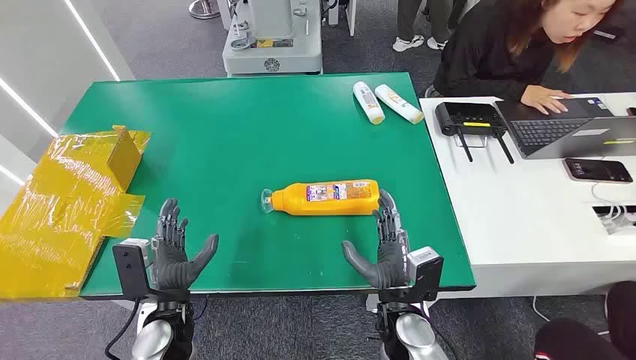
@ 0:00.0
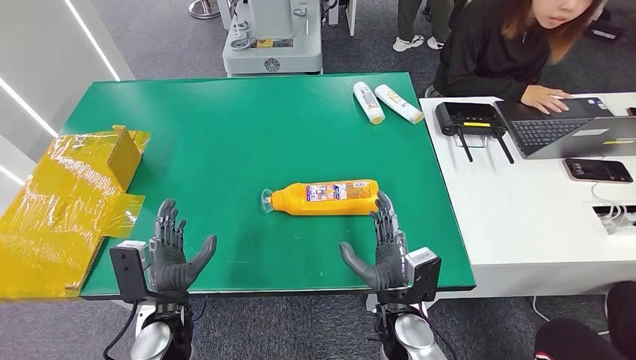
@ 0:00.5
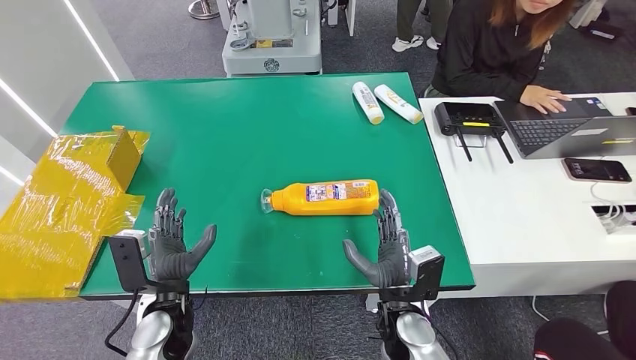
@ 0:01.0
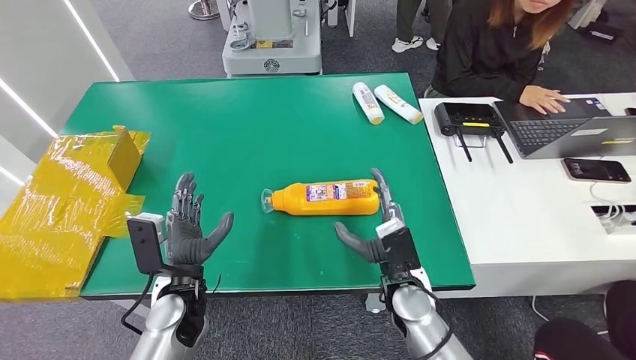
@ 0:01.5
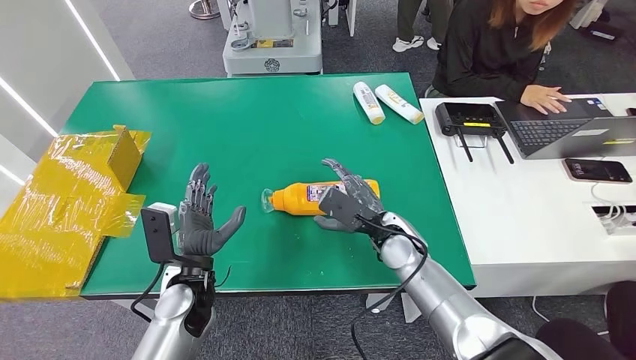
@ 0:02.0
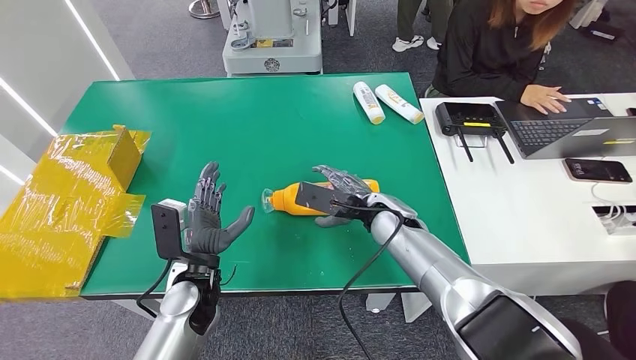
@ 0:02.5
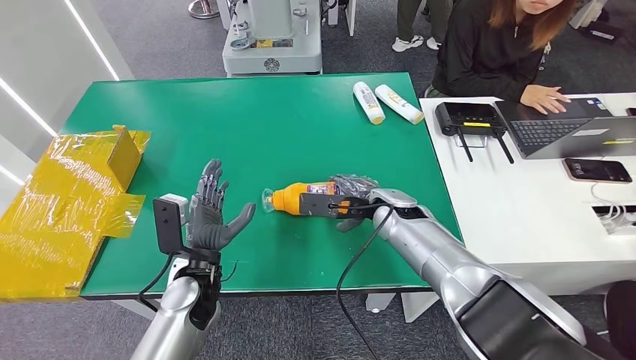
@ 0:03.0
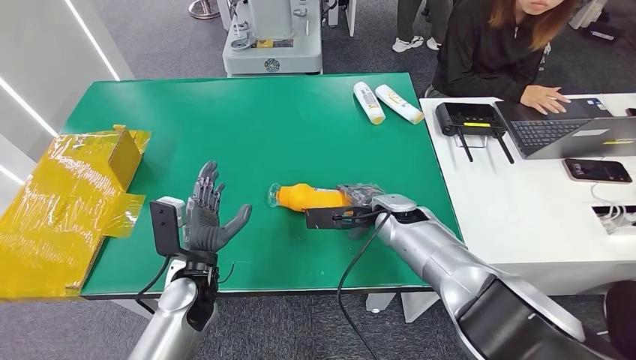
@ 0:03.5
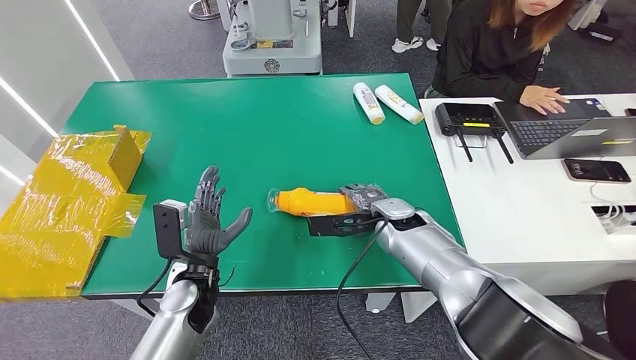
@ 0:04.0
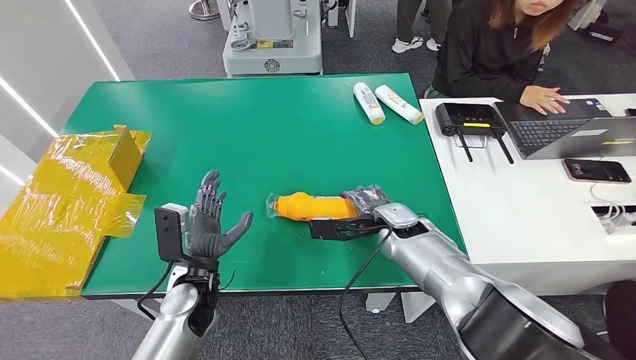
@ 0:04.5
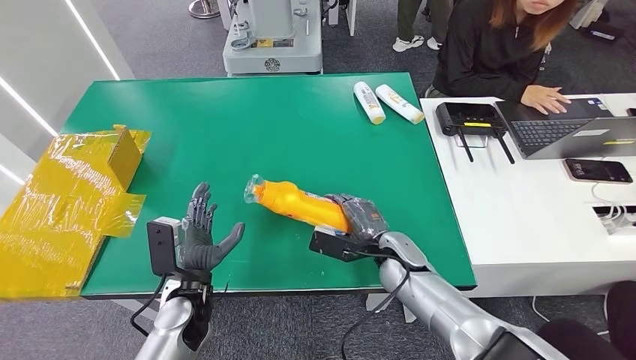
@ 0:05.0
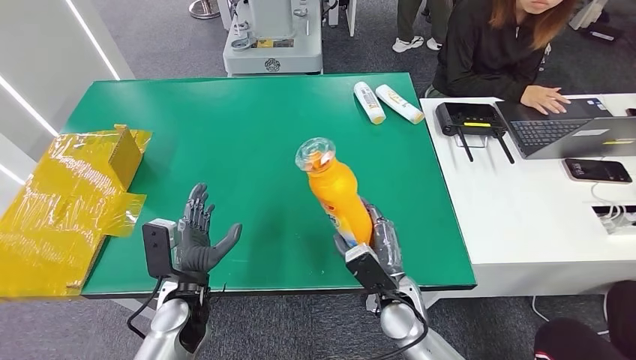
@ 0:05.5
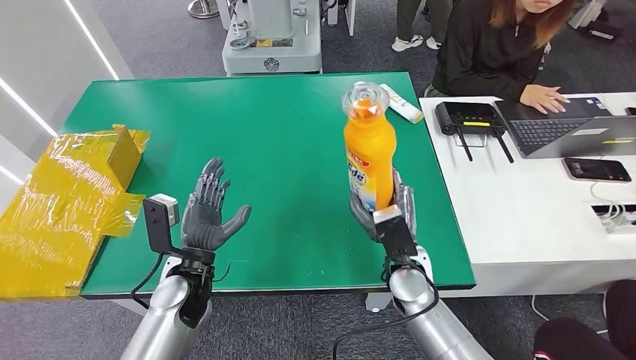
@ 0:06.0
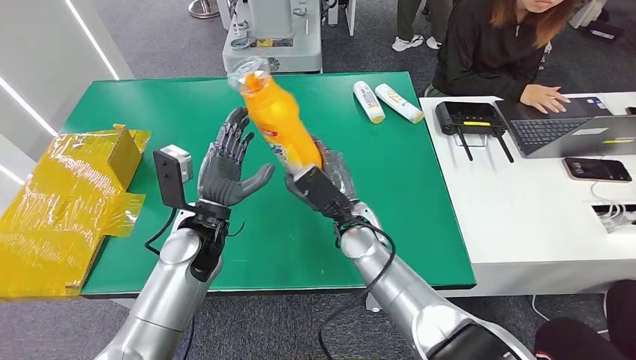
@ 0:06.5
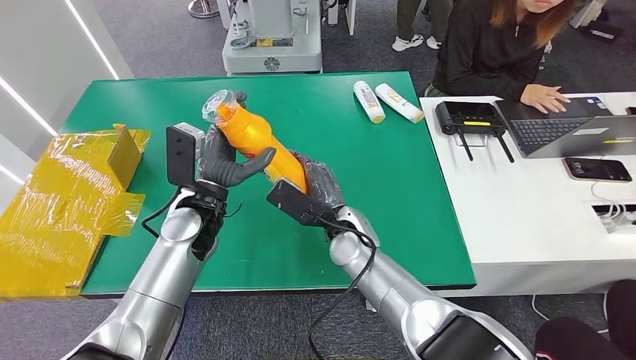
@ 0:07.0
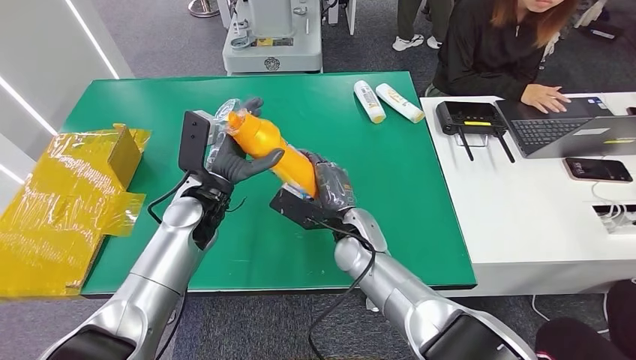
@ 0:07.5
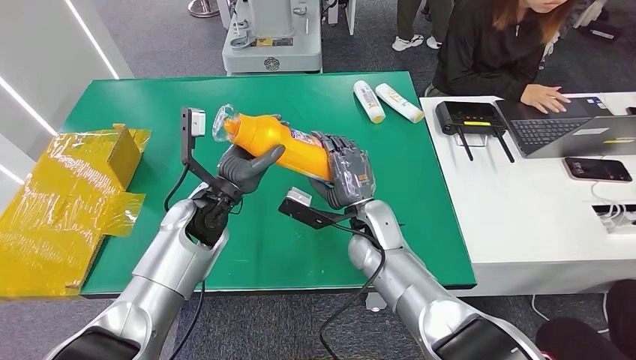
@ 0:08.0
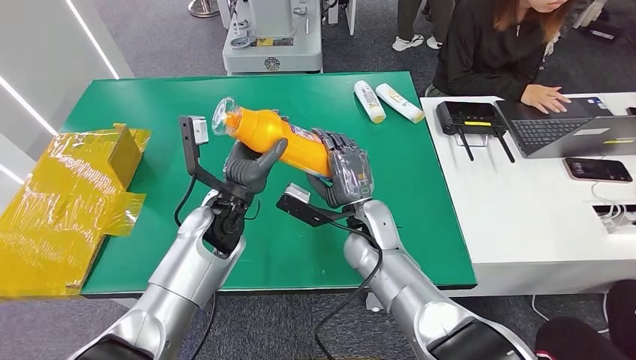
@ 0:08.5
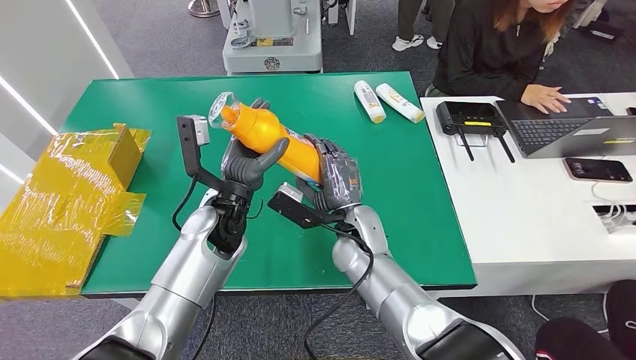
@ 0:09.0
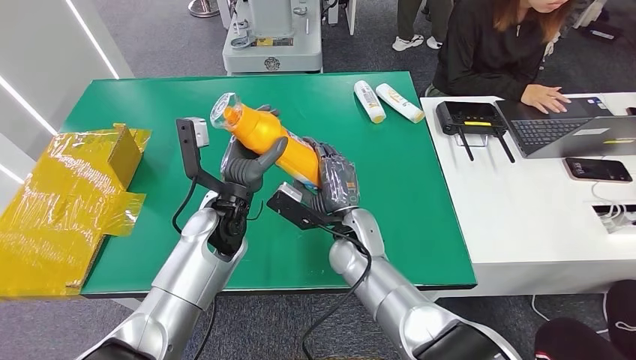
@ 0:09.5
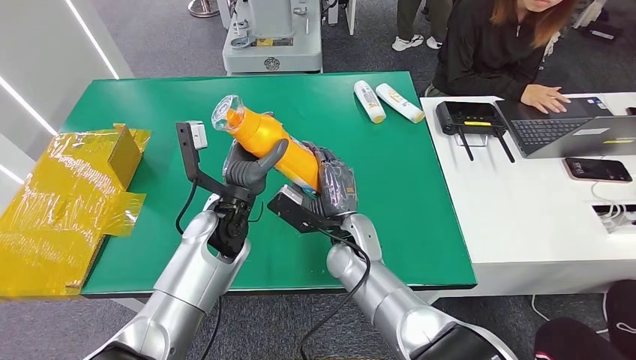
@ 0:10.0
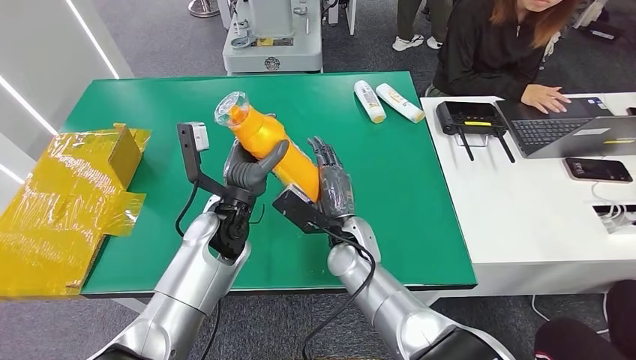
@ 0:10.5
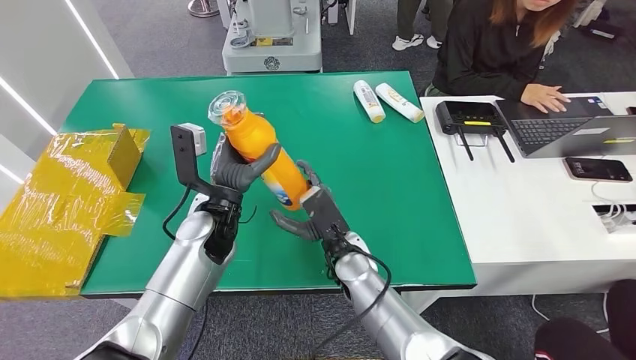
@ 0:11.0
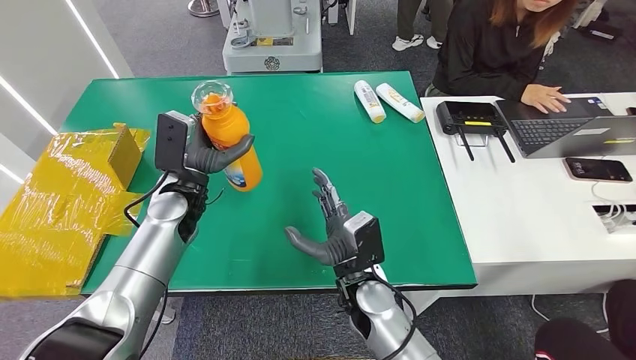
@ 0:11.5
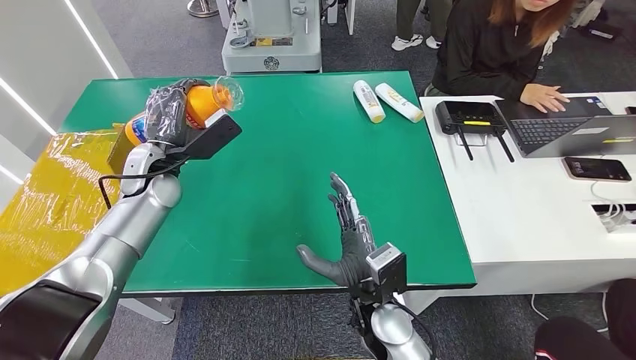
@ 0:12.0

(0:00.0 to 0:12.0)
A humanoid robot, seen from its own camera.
Step, 0:00.0 - 0:05.5: Pick up the bottle from the table.
0:04.0 - 0:06.0: The right hand moves backward, about 10 cm.
0:06.0 - 0:08.0: The left hand is displaced forward and upward by approximately 15 cm. Meanwhile the right hand is displaced to the left and forward by approximately 10 cm.

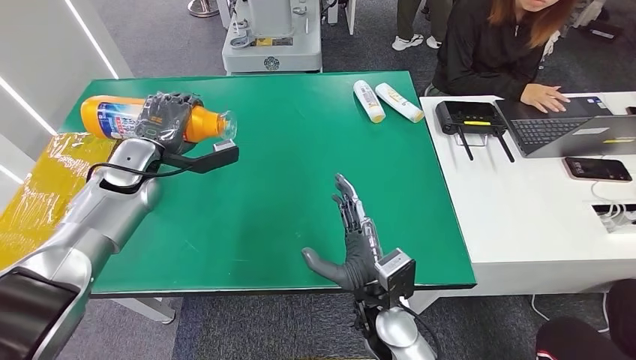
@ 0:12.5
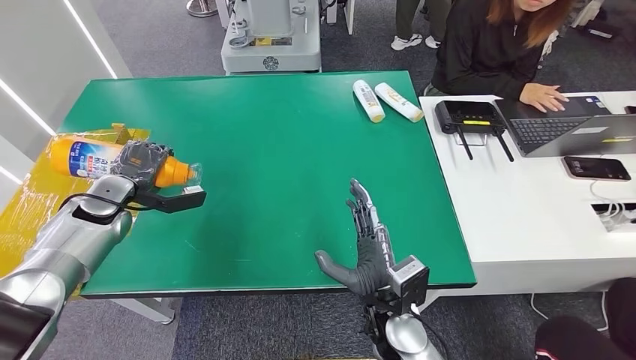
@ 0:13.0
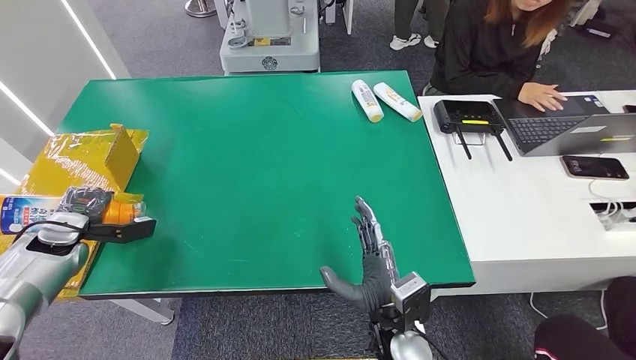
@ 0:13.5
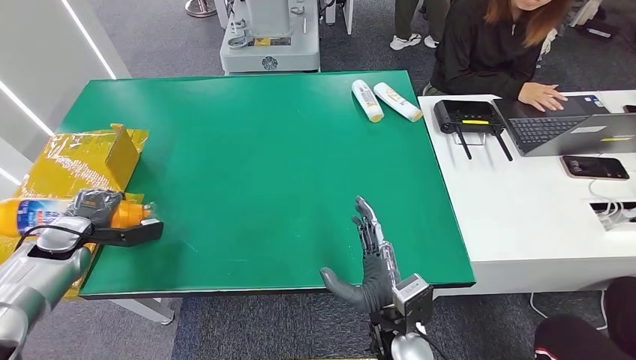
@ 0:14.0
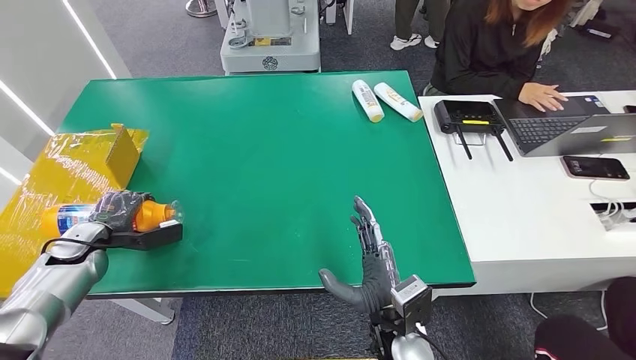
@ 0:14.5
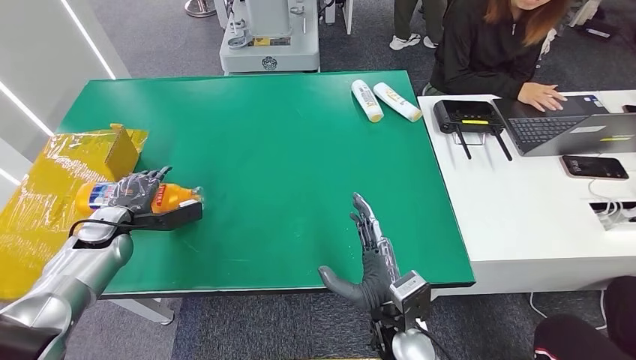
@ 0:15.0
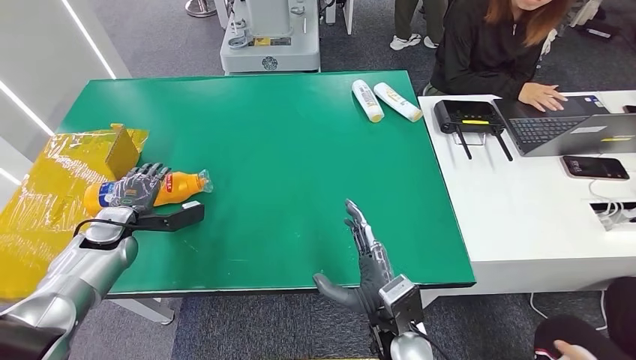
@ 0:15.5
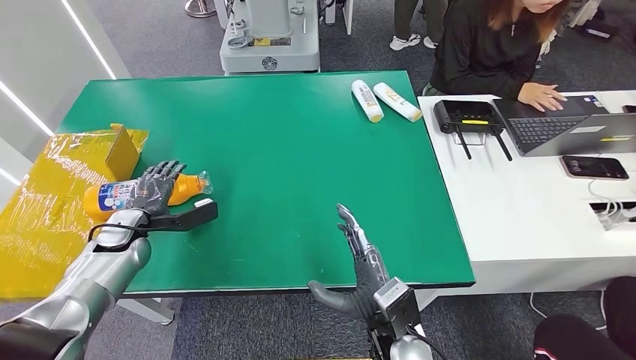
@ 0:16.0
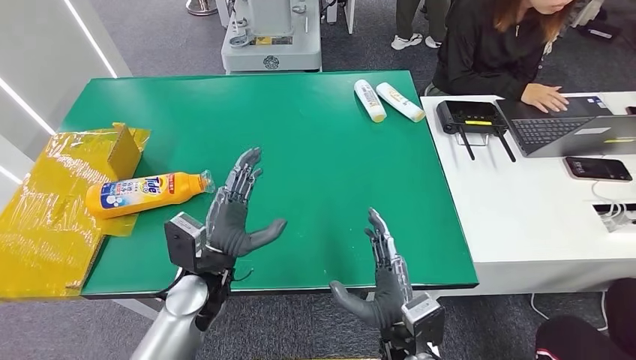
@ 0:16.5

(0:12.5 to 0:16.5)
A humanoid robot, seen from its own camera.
Step, 0:12.5 - 0:16.5: Turn the bottle to the front side.
0:12.5 - 0:14.5: The left hand moves to the left, downward and backward, roughly 20 cm.
0:14.5 - 0:16.5: The left hand moves to the right, roughly 30 cm.
